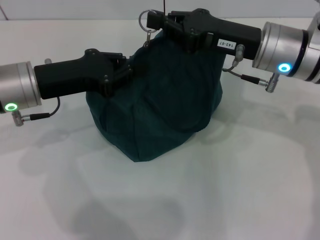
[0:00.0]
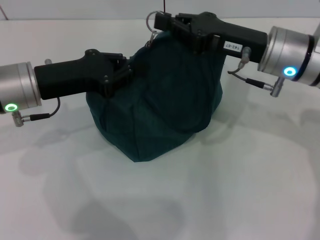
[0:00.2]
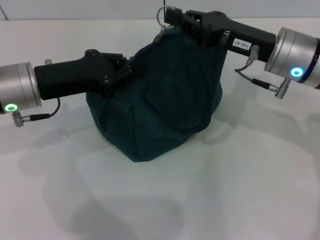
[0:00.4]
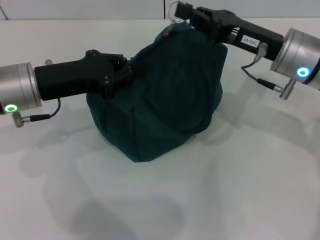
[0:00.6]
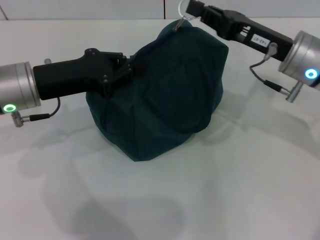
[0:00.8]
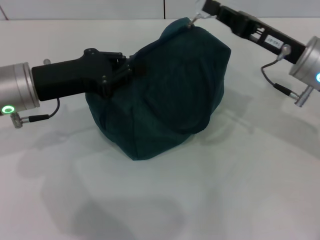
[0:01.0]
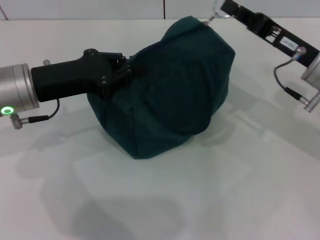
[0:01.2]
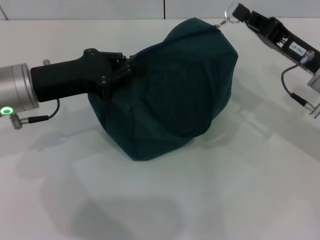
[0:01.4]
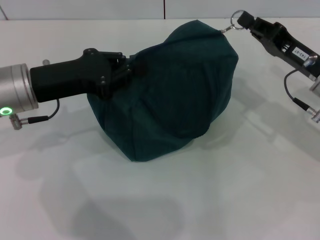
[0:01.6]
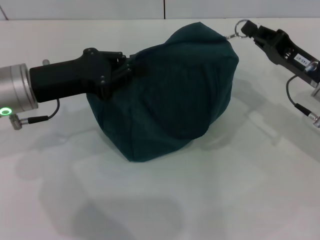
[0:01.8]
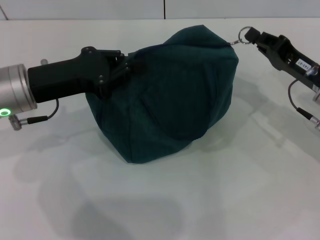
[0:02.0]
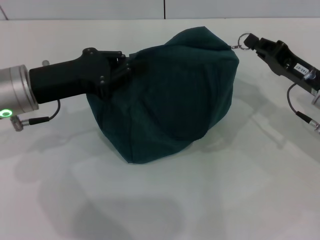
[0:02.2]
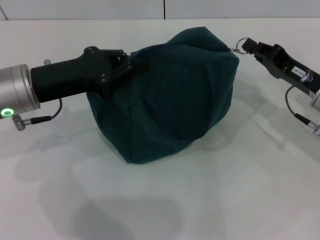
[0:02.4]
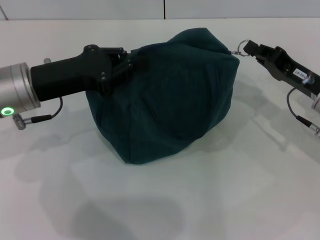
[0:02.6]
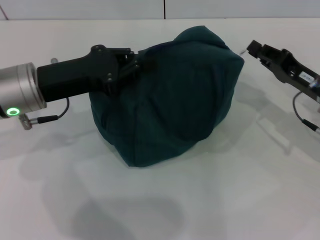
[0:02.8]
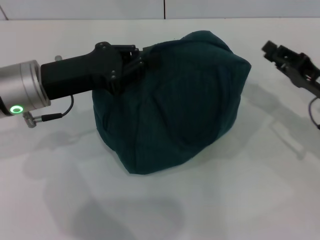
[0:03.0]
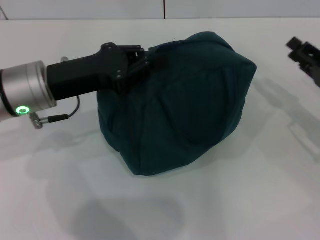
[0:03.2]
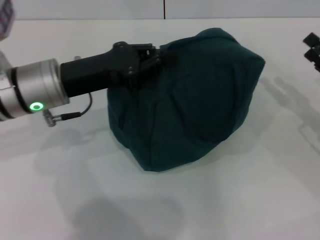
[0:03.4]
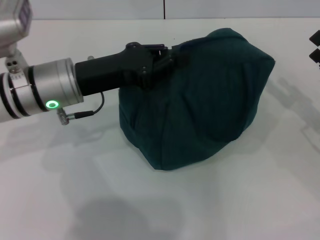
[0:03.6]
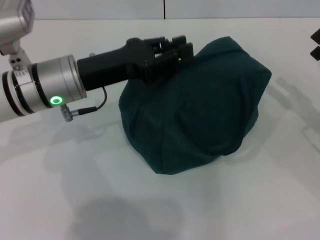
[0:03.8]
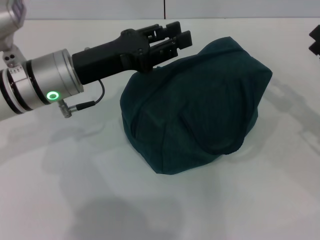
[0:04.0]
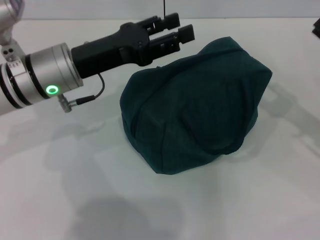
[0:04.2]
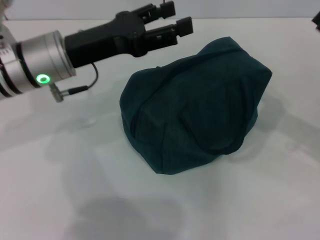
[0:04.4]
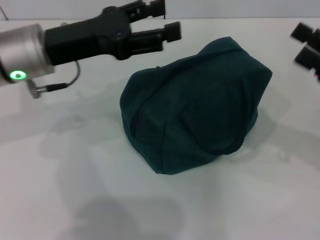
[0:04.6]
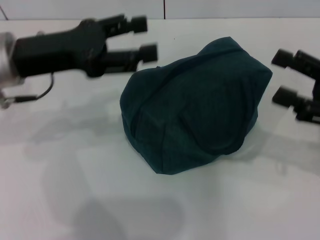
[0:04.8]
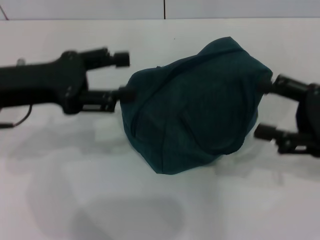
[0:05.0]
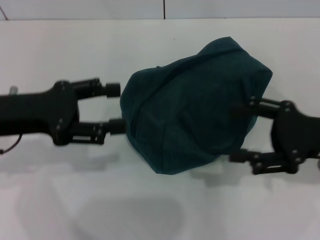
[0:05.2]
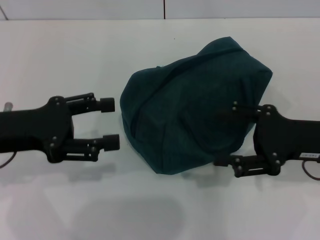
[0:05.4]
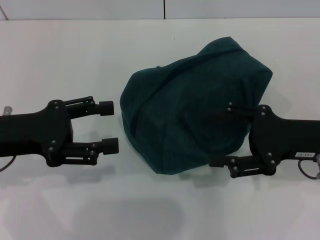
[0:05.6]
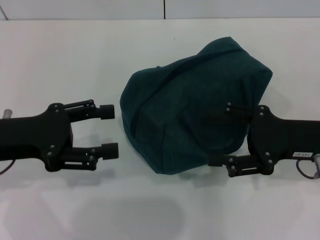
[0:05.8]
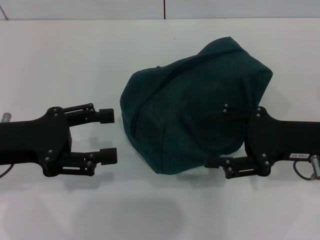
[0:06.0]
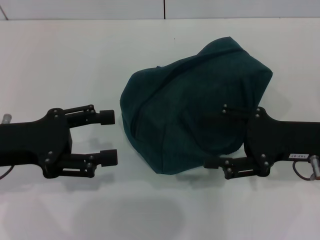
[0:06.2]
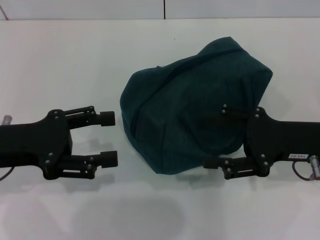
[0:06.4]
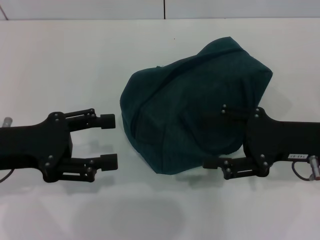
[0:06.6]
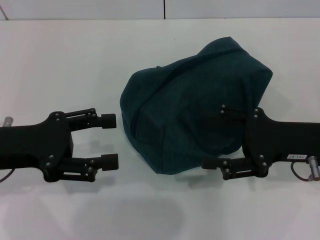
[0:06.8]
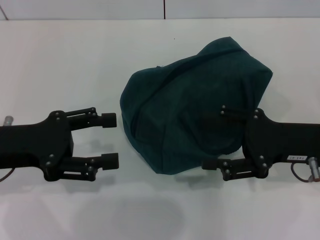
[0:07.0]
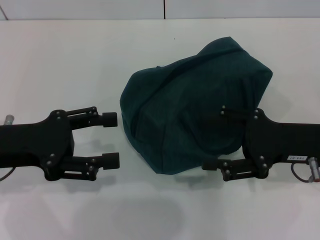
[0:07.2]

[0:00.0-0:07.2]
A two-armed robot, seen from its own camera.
Step, 0:00.0 to 0:02.8: Zip up the lunch bag with your right hand.
Step, 0:03.0 to 0:04.0: Hold the lunch bag with your left hand.
0:00.0 to 0:01.4: The right gripper is displaced to the right and downward by approximately 10 cm.
0:01.4 to 0:02.8: The grippers move only a little.
0:02.8 to 0:04.4: The left gripper opens its fingers. The right gripper heads to the right, upward and backward, covering roughly 10 cm, and opens.
0:04.4 to 0:05.8: The left gripper shifts approximately 15 cm to the left and backward. The right gripper heads to the left, covering some 10 cm.
0:05.8 to 0:07.2: Both grippers stay about where they are.

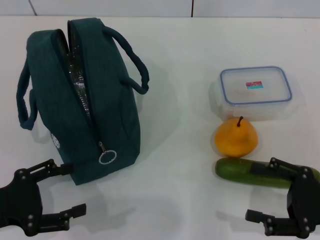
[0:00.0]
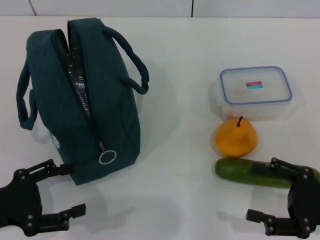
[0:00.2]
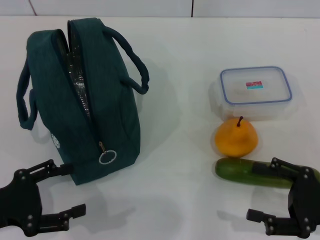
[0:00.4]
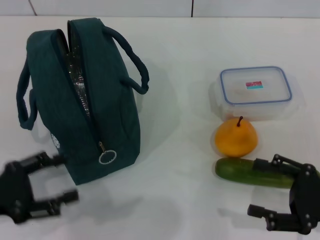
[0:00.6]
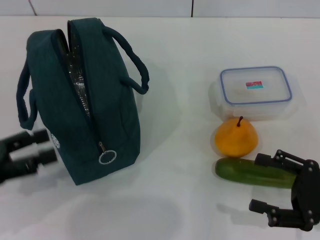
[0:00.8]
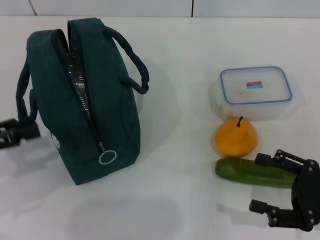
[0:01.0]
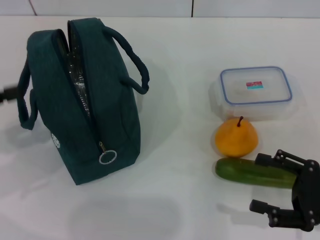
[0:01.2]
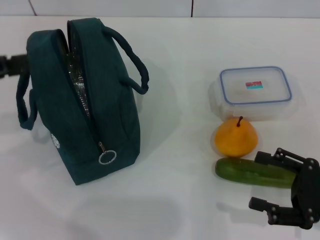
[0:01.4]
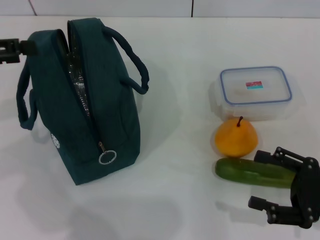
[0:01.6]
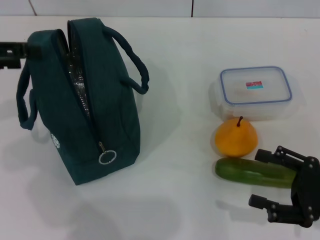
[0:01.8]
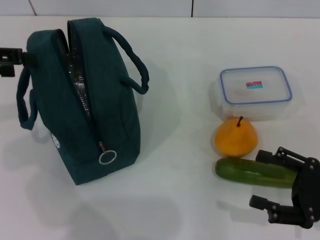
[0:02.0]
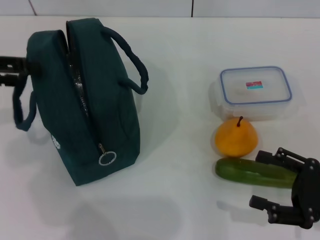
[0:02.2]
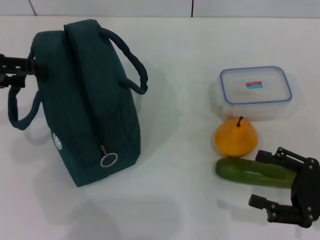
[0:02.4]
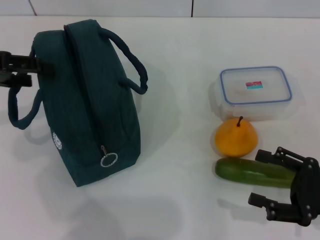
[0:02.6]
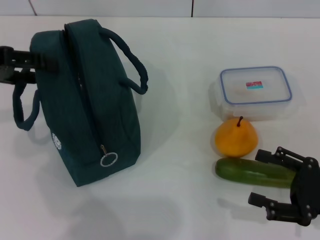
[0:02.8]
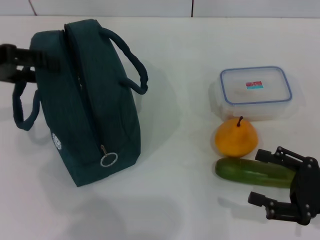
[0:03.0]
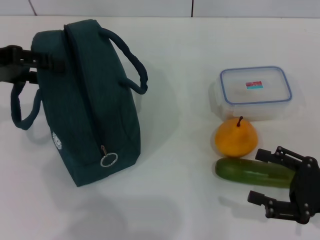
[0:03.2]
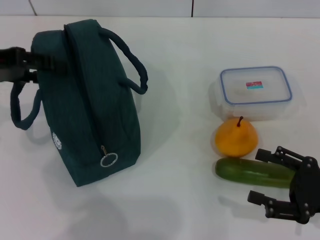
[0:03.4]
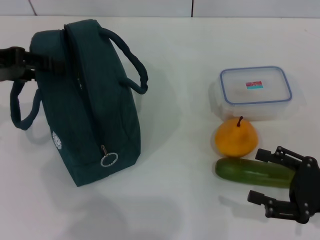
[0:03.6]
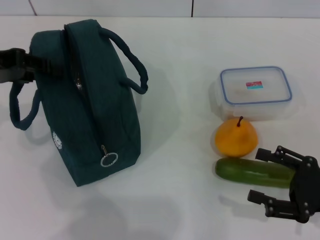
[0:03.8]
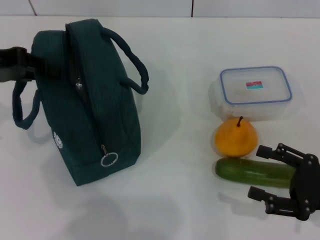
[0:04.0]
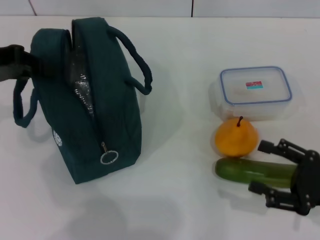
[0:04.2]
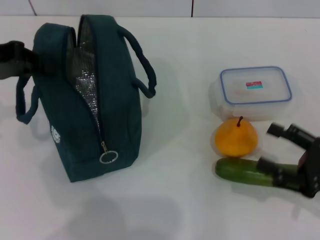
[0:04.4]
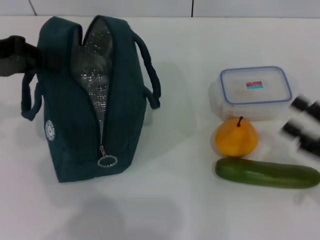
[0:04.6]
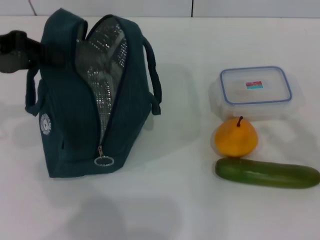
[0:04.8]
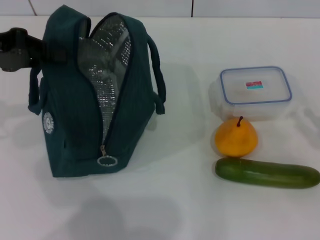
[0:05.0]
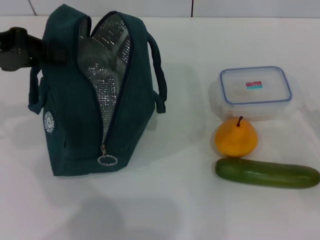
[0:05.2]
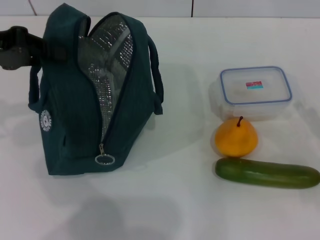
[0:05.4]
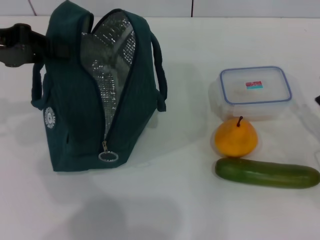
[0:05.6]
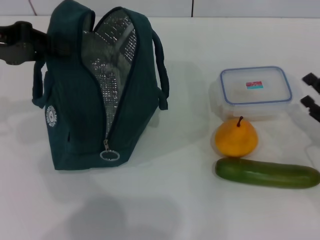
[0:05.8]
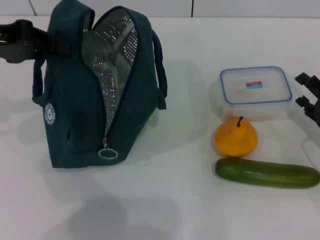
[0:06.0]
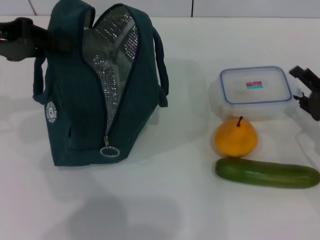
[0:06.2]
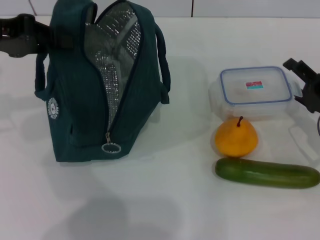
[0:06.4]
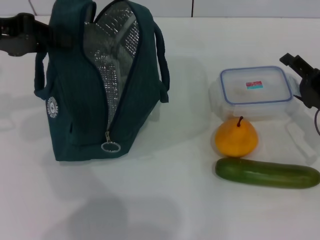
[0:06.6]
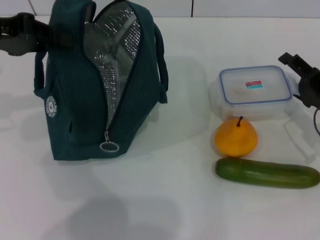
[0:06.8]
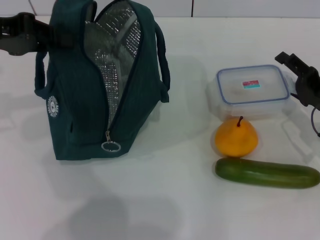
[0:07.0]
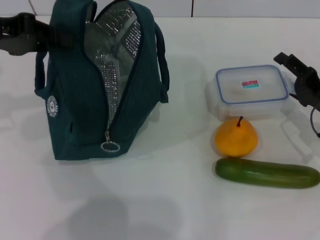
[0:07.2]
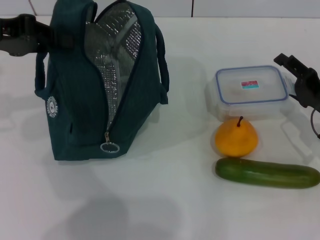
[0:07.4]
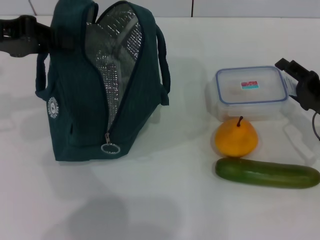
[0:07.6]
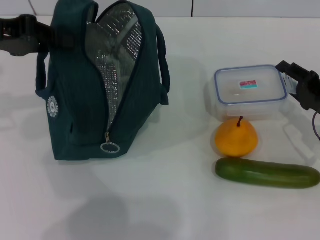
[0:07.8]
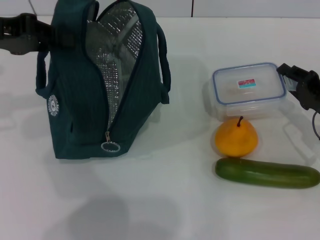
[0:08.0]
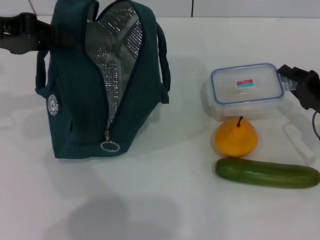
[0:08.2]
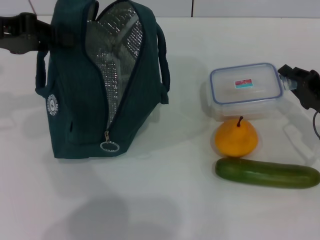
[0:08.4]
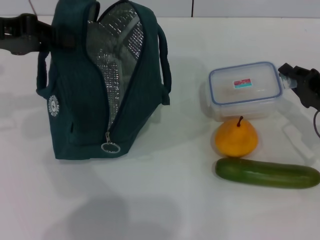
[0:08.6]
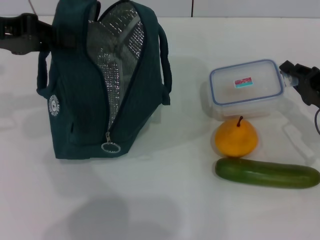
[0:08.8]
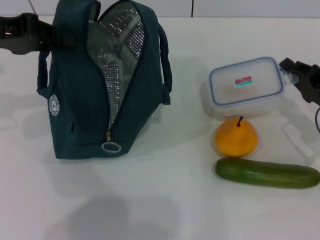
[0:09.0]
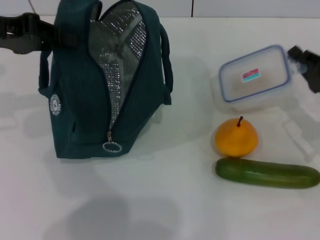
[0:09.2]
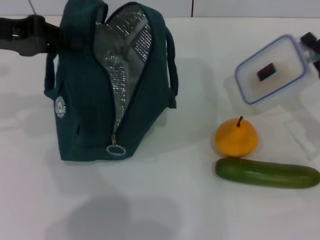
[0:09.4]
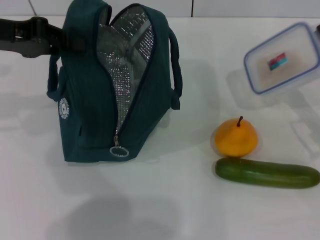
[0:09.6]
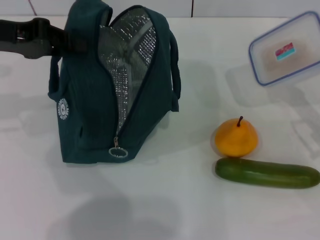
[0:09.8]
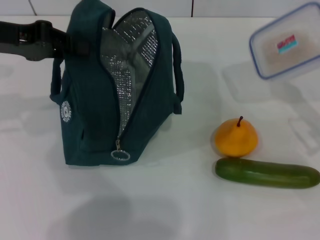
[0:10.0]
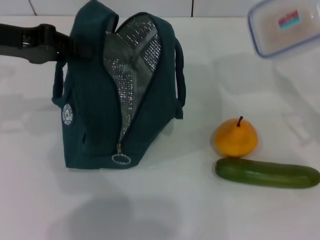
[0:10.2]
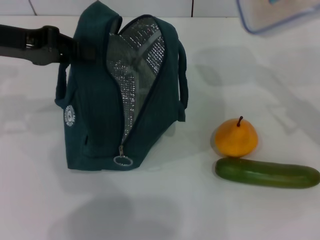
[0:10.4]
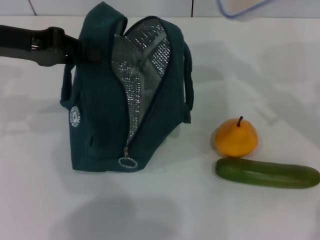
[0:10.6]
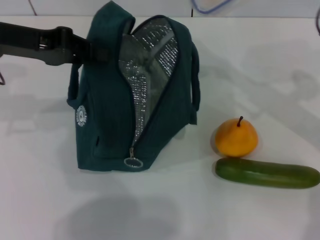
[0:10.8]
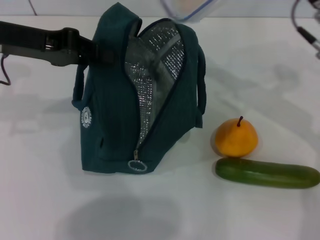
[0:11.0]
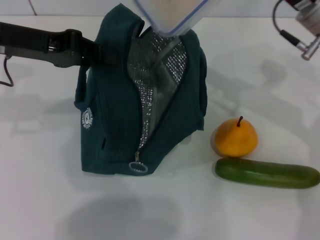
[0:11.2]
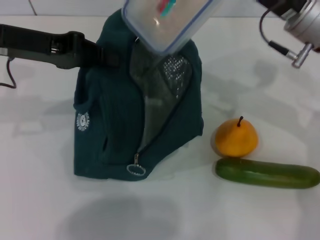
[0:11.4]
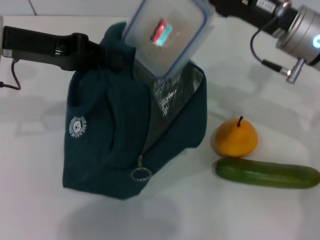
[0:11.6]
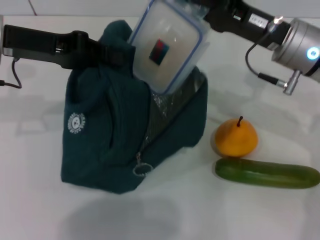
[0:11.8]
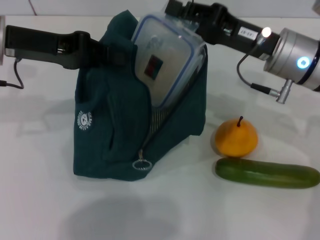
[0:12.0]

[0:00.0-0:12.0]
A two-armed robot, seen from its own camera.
Step, 0:00.0 to 0:04.4: Hold the lunch bag with your left hand.
Step, 0:04.6 to 0:08.6: Pick up the lunch box with your right hand.
0:00.0 to 0:01.6: The left gripper is displaced upward and forward by some 20 cm.
0:01.6 to 0:03.0: There are only small adjustments of the grippers.
0:03.0 to 0:04.4: The left gripper closes.
0:04.4 to 0:06.0: The right gripper is displaced forward by approximately 5 cm.
0:06.0 to 0:07.6: The grippers make only small movements.
0:07.6 to 0:09.0: The right gripper closes up.
0:09.0 to 0:10.4: The right gripper is displaced upward by some 10 cm.
0:10.4 to 0:12.0: The right gripper heads to the left, covering approximately 10 cm.

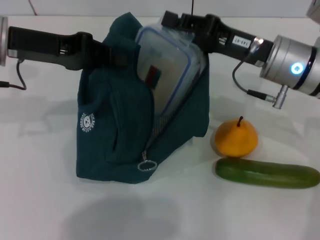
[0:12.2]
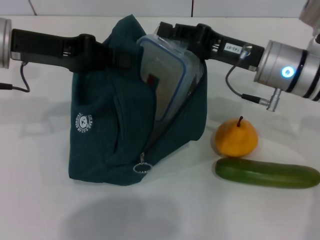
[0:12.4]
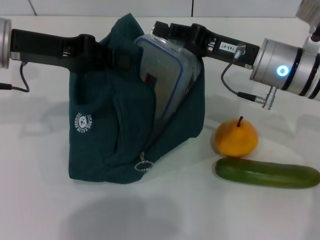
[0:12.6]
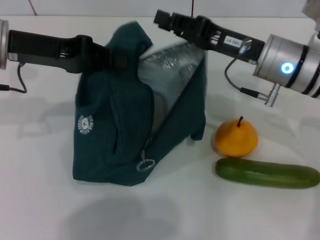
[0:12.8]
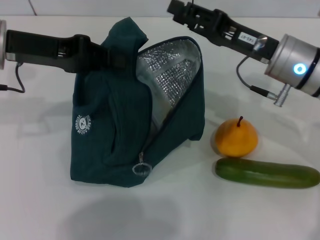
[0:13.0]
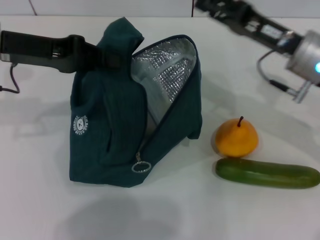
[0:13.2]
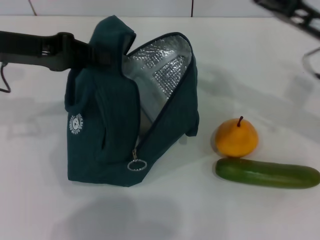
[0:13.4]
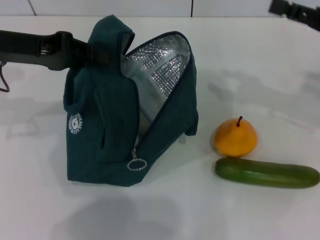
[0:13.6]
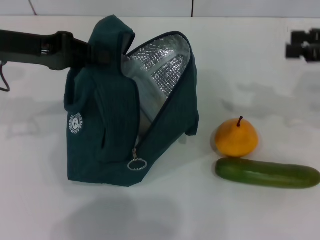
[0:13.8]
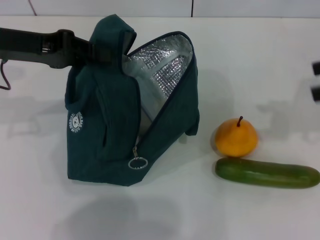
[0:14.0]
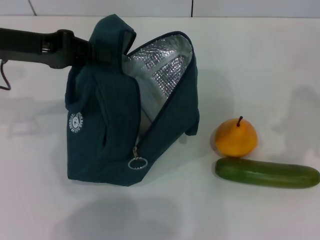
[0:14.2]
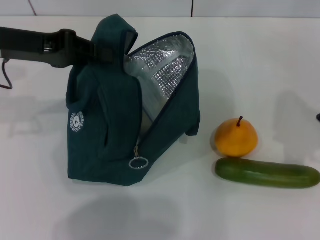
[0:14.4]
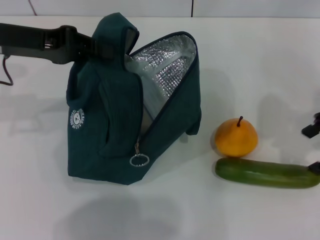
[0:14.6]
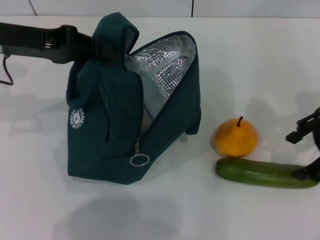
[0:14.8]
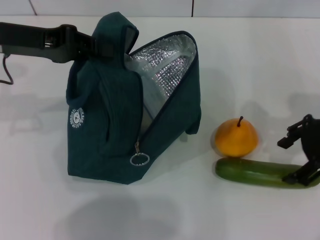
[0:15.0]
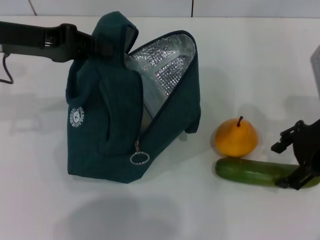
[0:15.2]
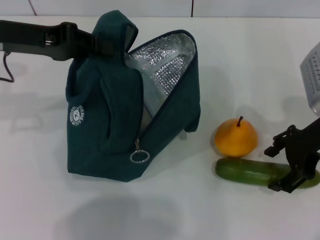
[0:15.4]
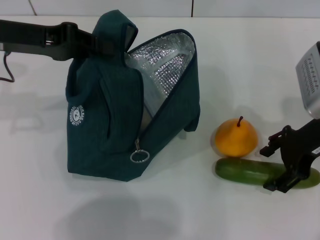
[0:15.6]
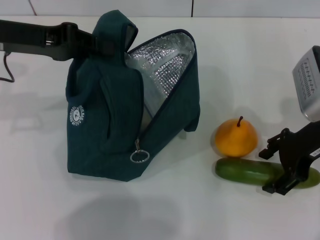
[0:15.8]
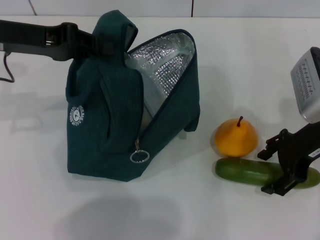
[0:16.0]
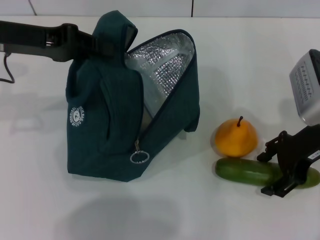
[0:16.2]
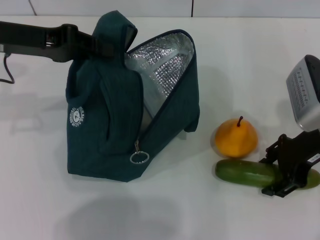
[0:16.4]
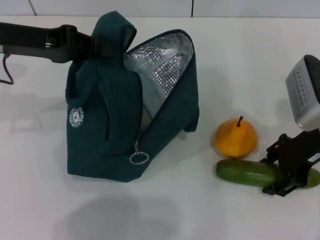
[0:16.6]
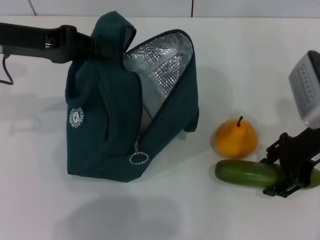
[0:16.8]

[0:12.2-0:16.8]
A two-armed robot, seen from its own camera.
Step, 0:13.0 to 0:16.4: Pick up the cucumber with your right hand.
0:12.2 to 0:13.8: The right gripper is displaced to the right and upward by about 20 cm, and opens.
0:13.8 to 0:15.2: The right gripper shifts some 10 cm to the left.
0:15.2 to 0:16.8: The grippers stay close to where they were, moving slightly.
